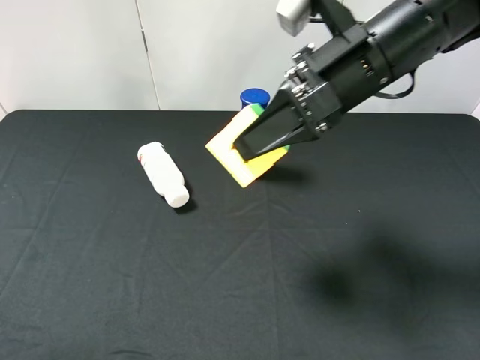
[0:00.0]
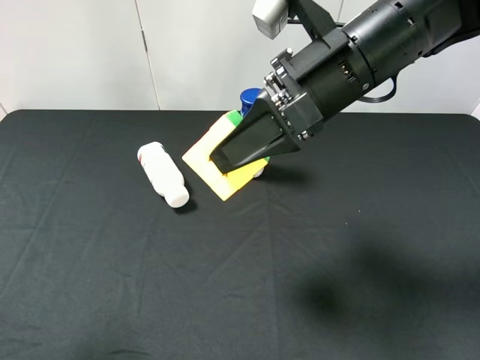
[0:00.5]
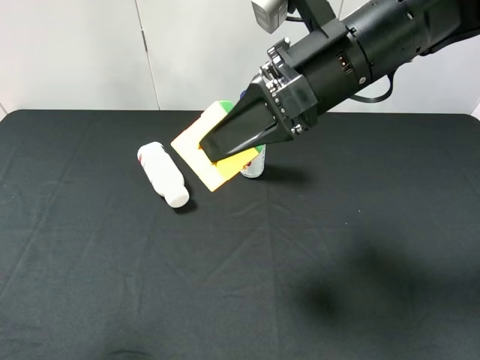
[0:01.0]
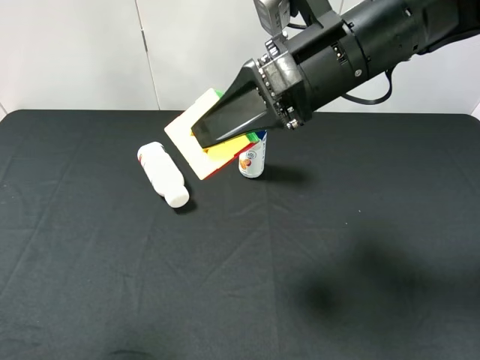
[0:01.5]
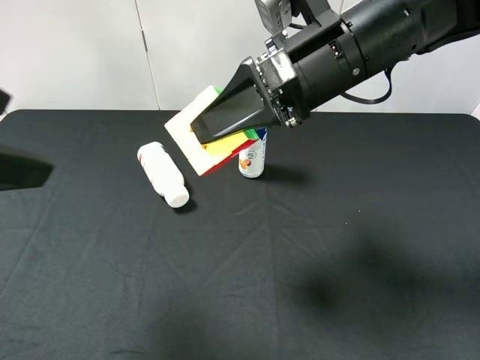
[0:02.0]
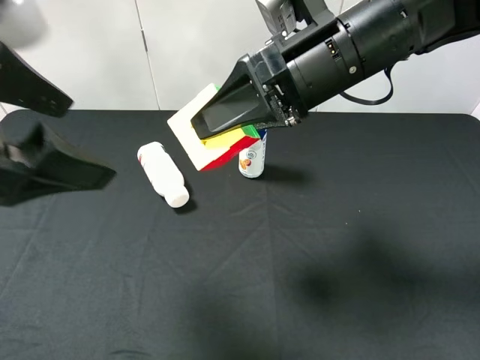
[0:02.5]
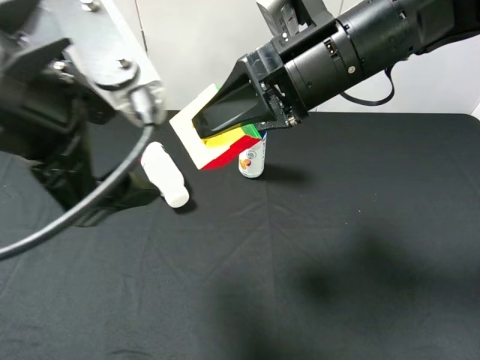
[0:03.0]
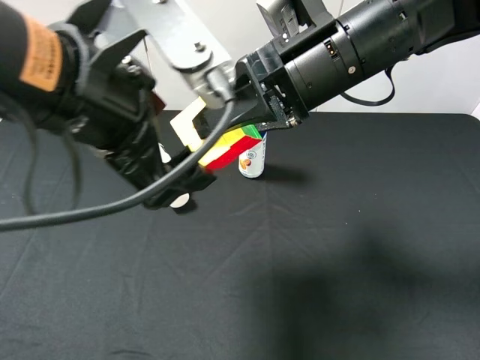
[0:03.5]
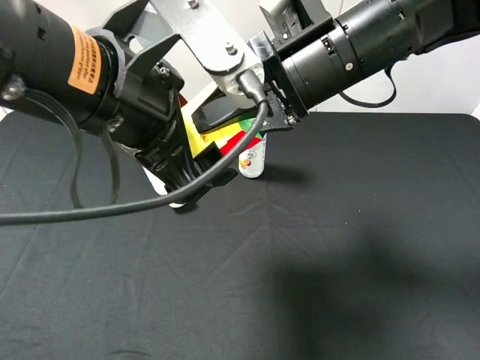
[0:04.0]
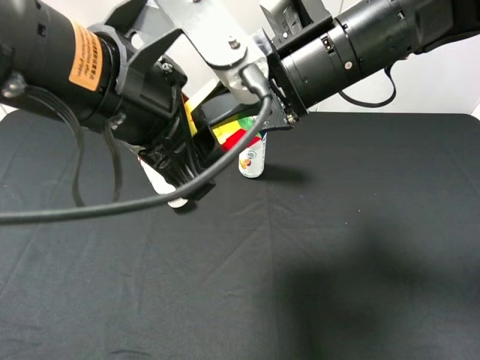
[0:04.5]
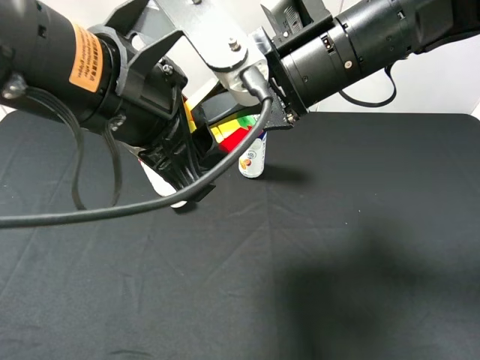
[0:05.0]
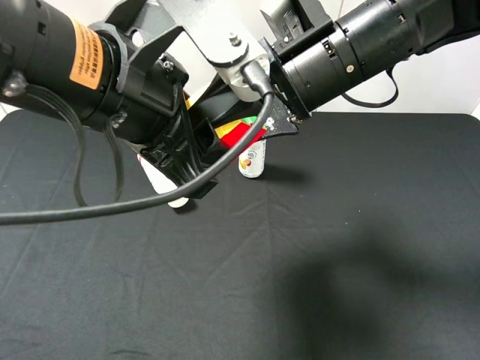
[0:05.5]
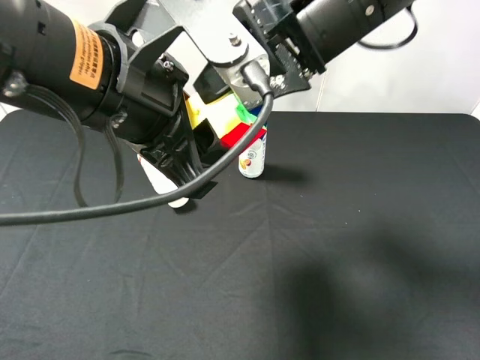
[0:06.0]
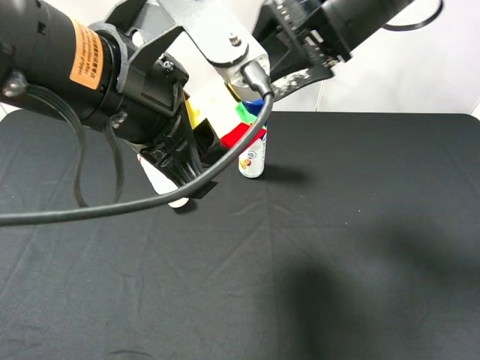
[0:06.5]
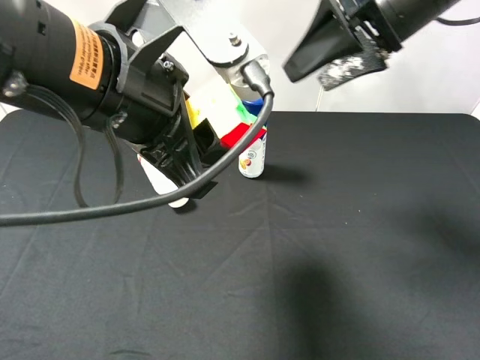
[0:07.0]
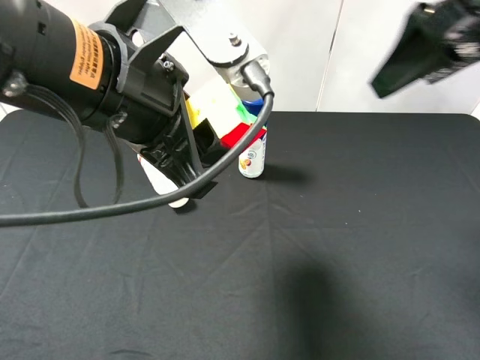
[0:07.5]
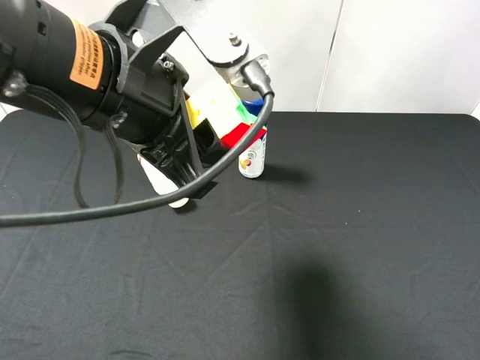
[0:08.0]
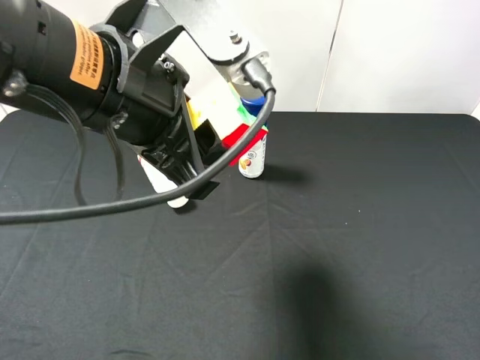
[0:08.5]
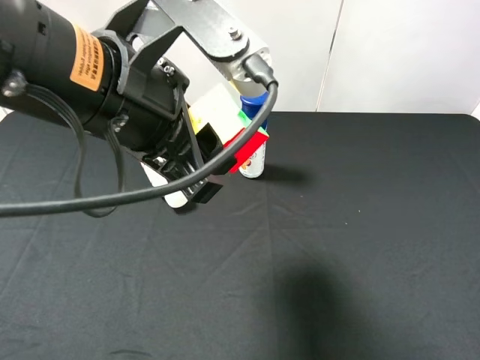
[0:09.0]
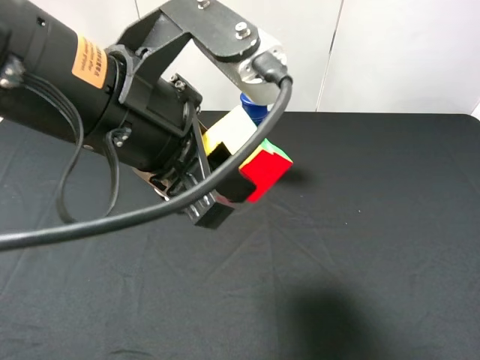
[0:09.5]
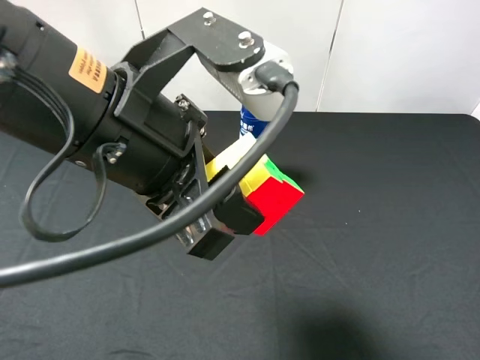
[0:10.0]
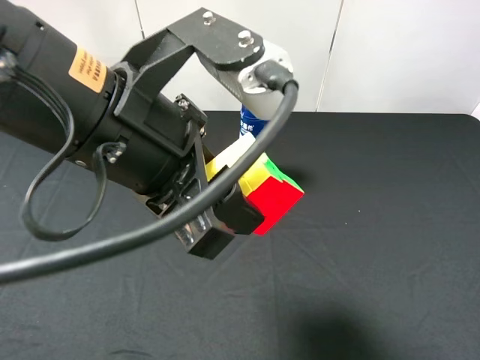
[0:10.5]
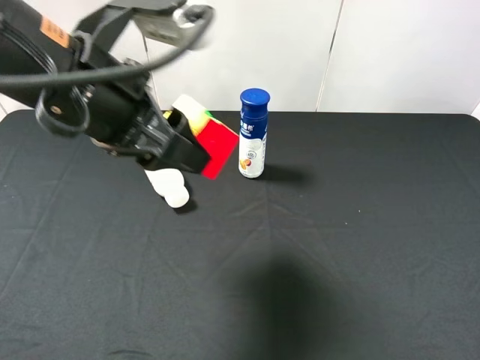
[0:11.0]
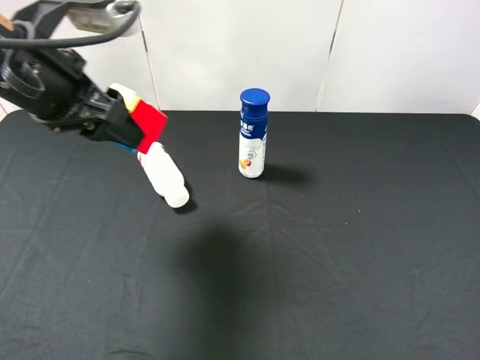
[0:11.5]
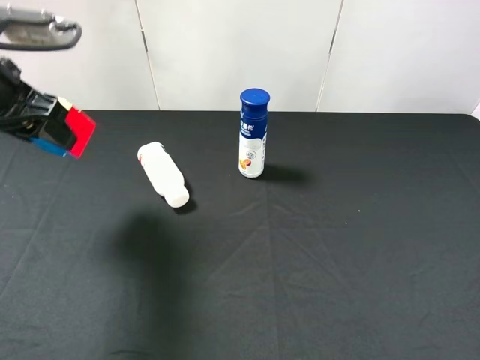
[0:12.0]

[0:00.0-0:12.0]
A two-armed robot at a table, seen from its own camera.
Task of the whole recording: use the right gripper to pick up the item and transfer it from the right gripper to the left gripper.
Step, 0:00.0 to 0:05.5: Pass the Rubik's Cube to the left gripper.
0:00.0 to 0:02.0: The left gripper heads forward and to the right, covering approximately 10 cm.
0:02.0 to 0:04.0: The left gripper shifts about 15 cm to the right.
0:04.0 to 0:06.0: The right gripper opens. The left gripper closes up.
0:06.0 to 0:08.0: The right gripper heads backward and to the right, covering about 25 cm.
0:08.0 to 0:10.0: The right gripper moves downward and backward, about 15 cm.
0:10.0 to 0:12.0: The left gripper shifts roughly 25 cm to the left and forward.

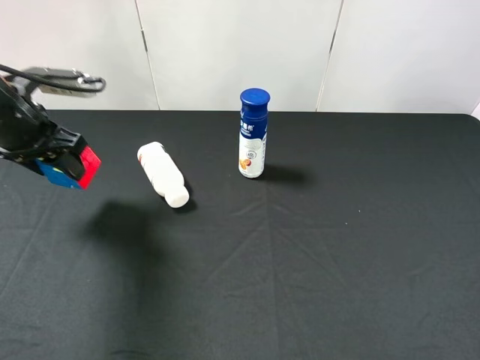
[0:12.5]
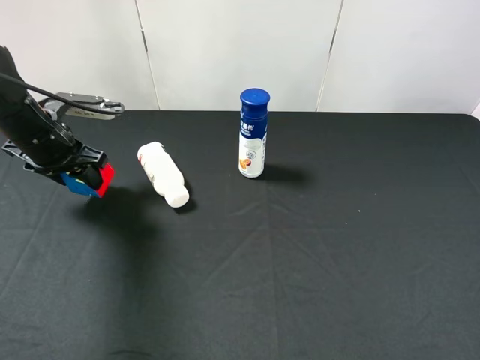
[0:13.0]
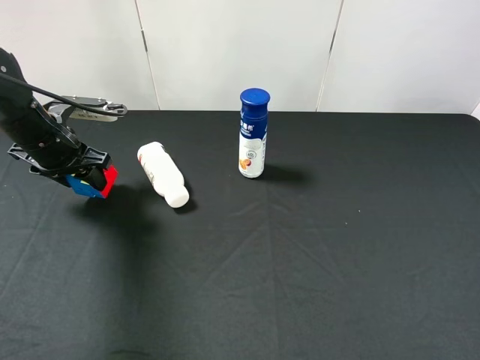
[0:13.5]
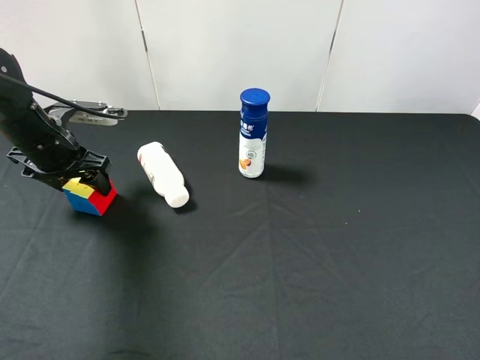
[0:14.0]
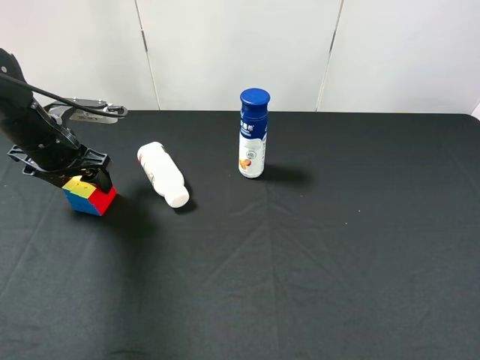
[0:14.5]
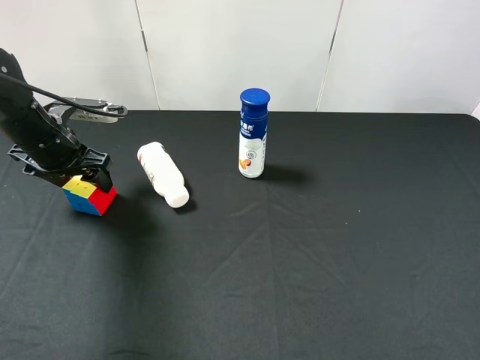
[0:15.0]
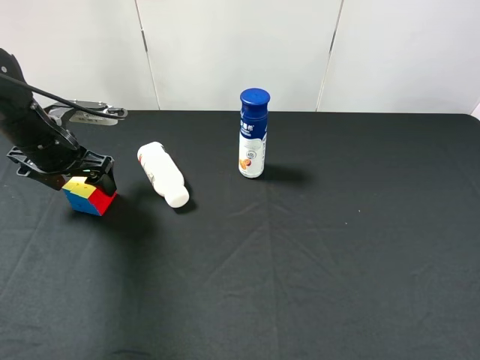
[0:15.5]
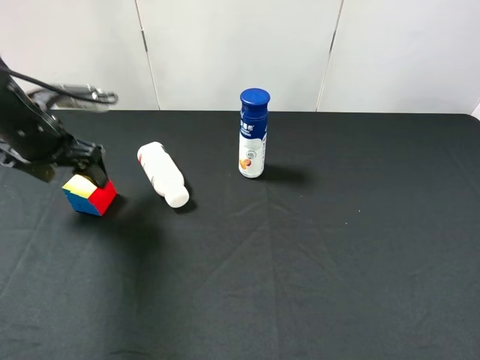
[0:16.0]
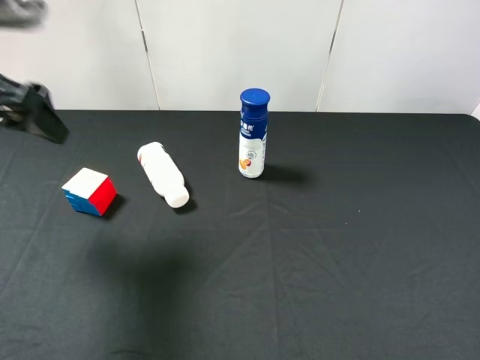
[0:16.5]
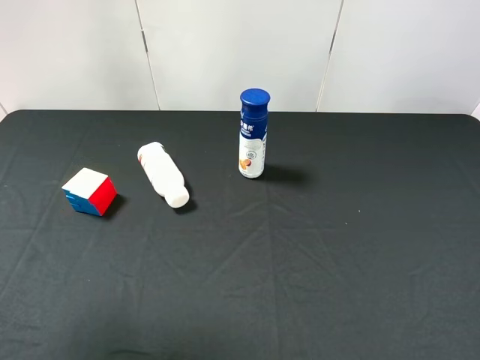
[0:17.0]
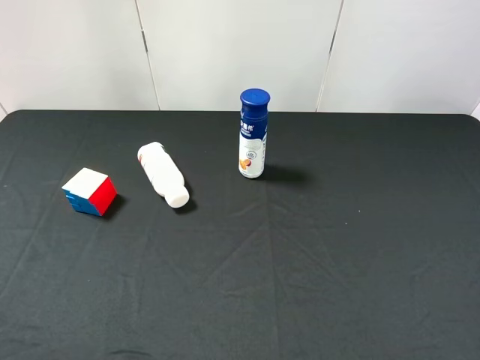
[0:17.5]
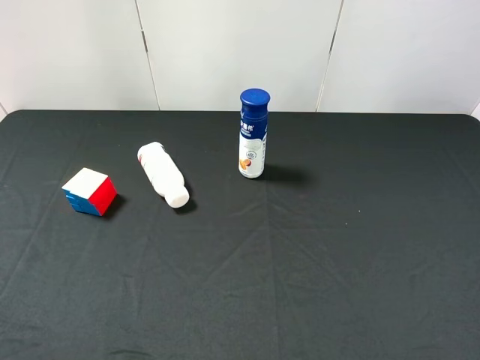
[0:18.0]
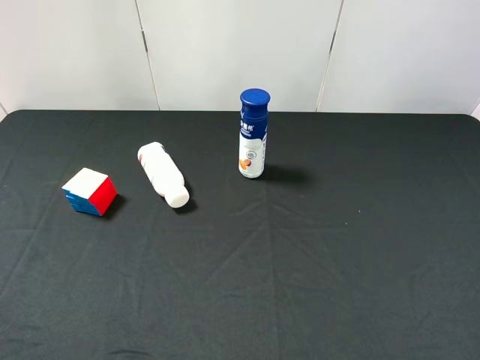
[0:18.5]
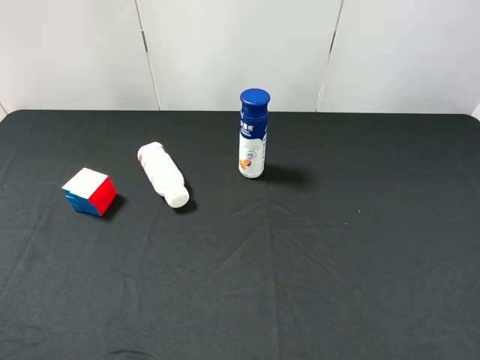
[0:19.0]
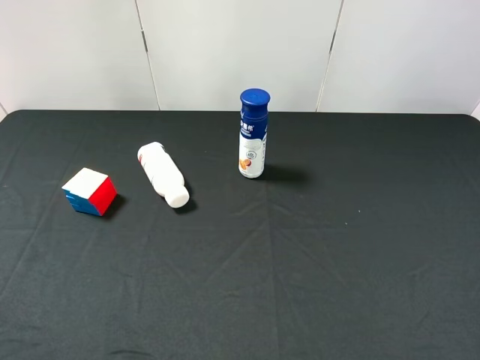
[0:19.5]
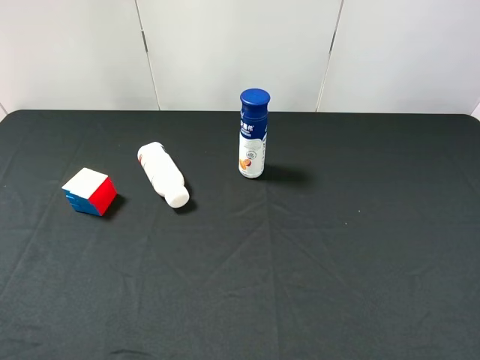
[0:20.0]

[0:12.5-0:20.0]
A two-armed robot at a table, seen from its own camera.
Task of the whole recording: use the right gripper to pick up the item and transfer it from the right gripper to the left gripper.
Step, 0:12.5 to 0:14.5: The left gripper places milk on the left side of the table.
0:12.5 to 0:14.5: The left gripper heads downward, covering some 5 cm, and opens up.
0:14.5 to 0:16.5: The left gripper heads upward and backward, covering approximately 20 cm, and opens its fingers.
0:16.5 to 0:18.0: The left gripper heads backward, covering roughly 25 cm.
